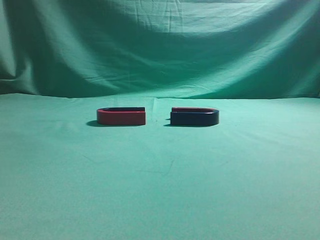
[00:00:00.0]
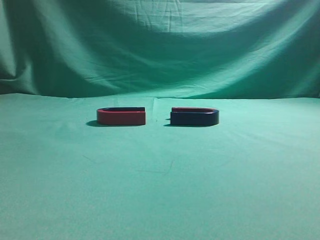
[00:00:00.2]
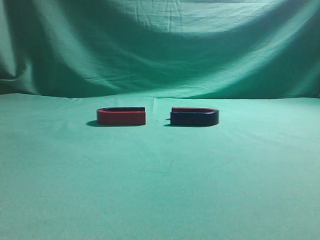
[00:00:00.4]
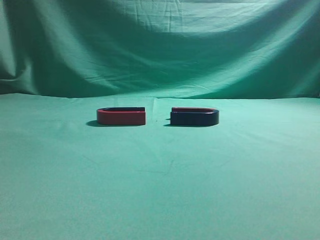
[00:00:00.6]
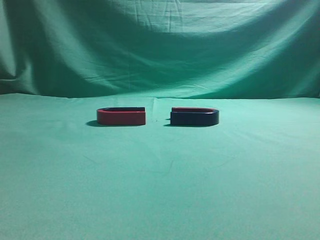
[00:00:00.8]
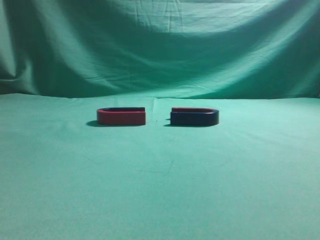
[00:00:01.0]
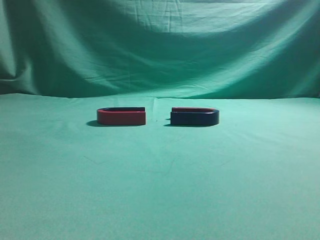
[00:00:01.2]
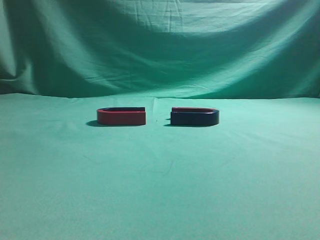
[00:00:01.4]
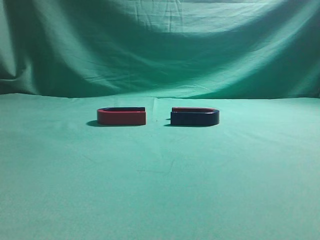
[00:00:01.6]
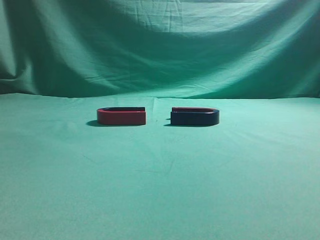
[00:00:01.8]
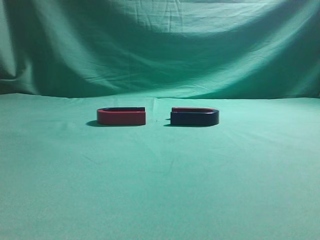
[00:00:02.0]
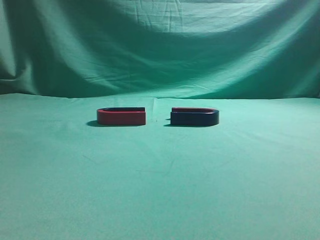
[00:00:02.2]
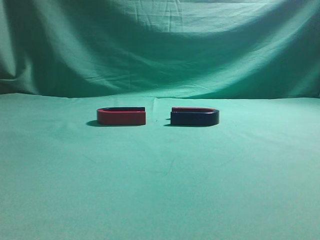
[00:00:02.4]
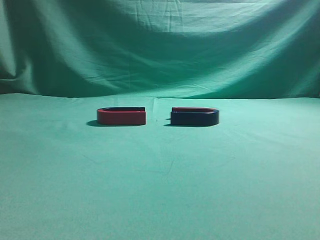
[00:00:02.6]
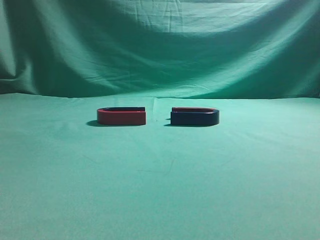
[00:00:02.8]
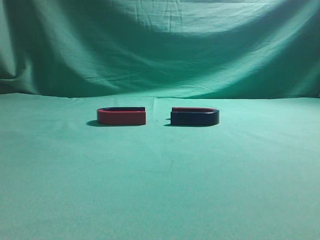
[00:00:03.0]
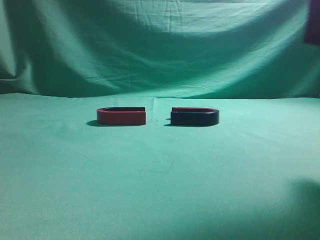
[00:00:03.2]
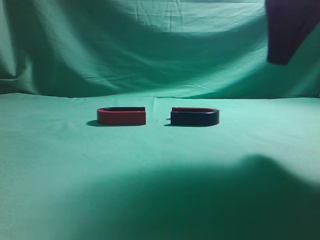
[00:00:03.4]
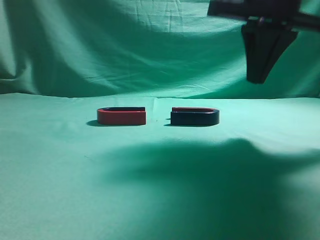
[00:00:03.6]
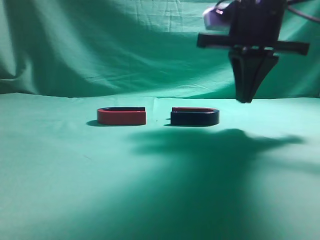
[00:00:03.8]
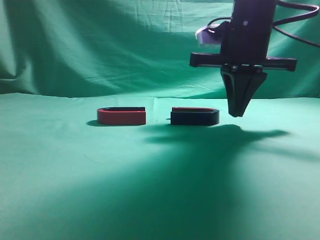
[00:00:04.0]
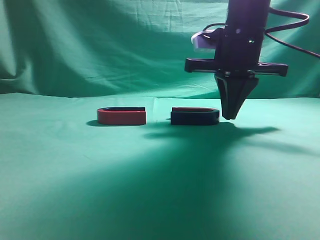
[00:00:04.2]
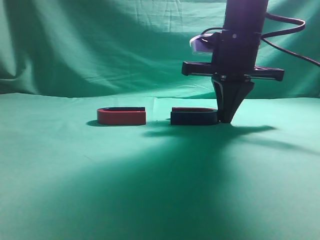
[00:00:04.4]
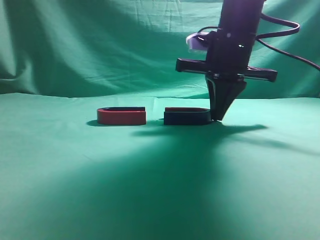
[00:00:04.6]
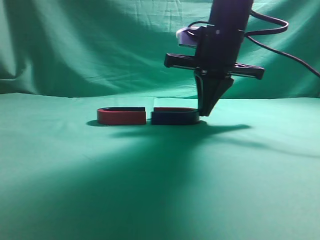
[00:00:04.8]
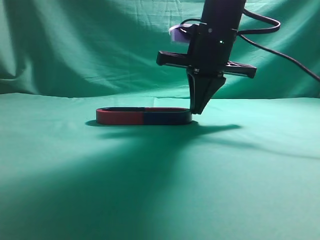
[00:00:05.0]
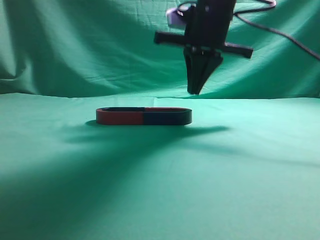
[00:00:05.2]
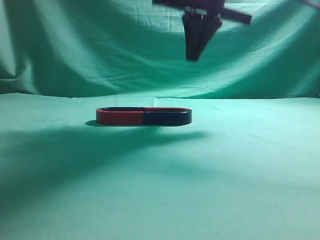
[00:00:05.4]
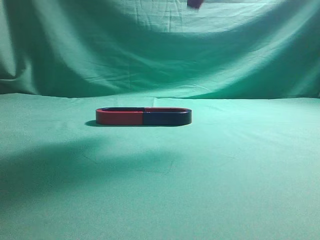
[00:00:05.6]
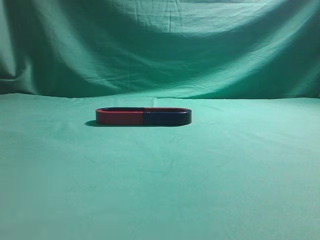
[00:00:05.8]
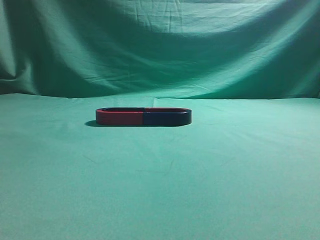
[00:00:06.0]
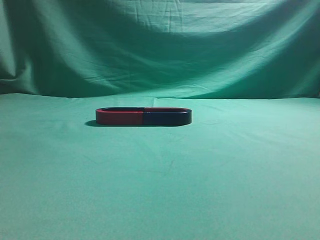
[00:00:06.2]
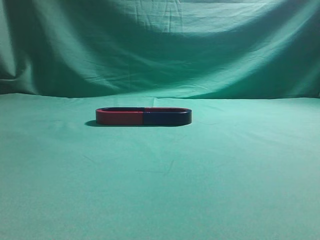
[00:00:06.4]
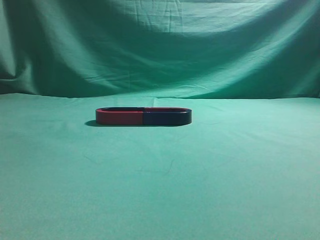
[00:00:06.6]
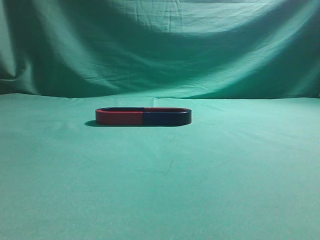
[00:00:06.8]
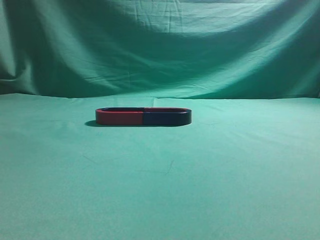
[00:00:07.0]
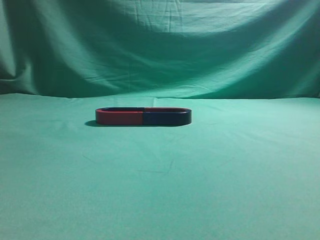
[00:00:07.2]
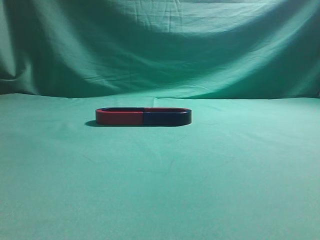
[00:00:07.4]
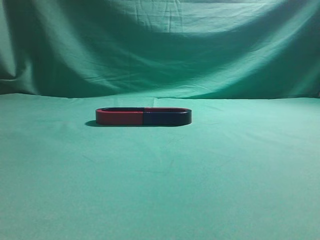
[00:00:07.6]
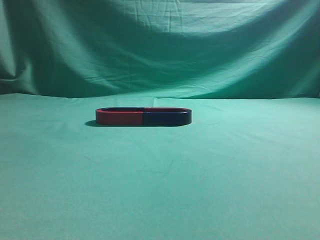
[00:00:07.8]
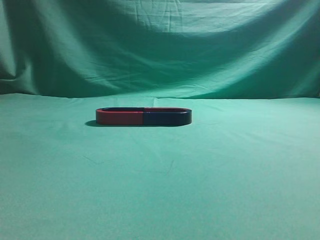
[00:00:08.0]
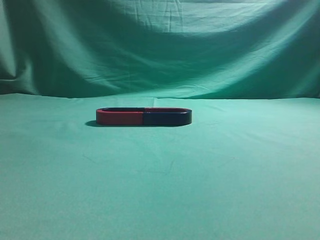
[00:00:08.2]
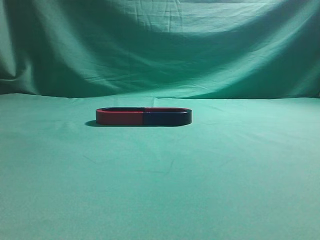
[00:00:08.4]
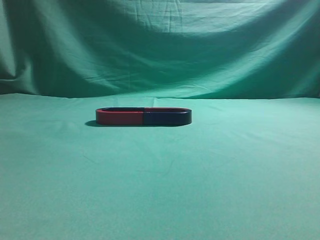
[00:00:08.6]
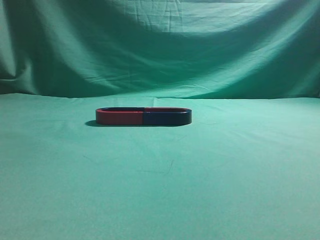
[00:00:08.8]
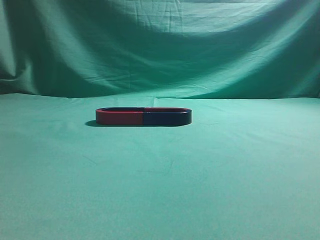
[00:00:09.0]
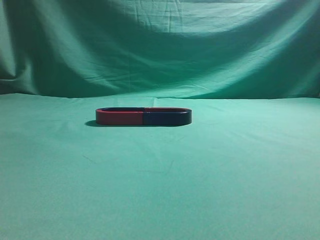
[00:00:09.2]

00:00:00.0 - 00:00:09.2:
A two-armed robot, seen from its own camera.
Task of the whole recording: push the magnet on the table from its original position to another position.
Step, 00:00:00.0 - 00:00:05.0: Push the magnet on the right to connect the magnet on the left.
00:00:03.0 - 00:00:04.6: The right gripper heads forward, downward and to the left, covering some 25 cm.
00:00:04.6 - 00:00:06.2: The right gripper moves upward and backward, roughly 35 cm.
